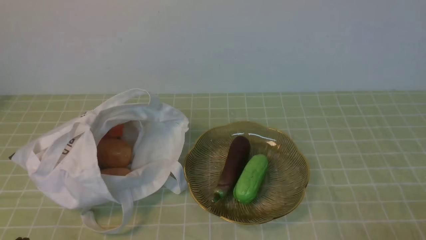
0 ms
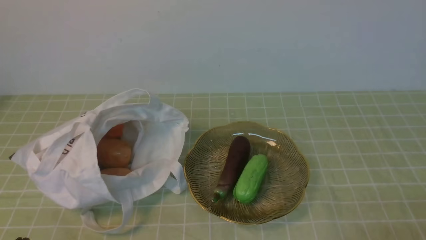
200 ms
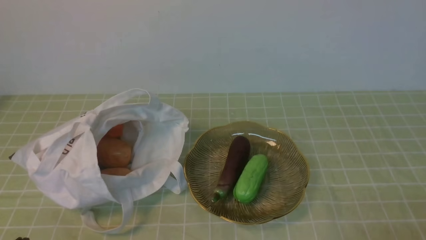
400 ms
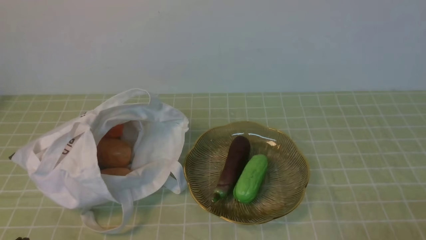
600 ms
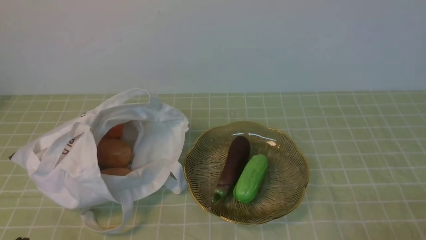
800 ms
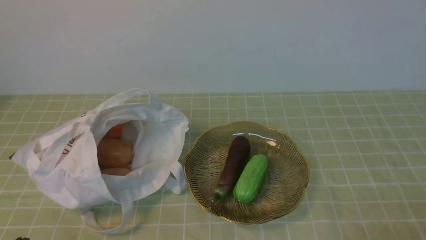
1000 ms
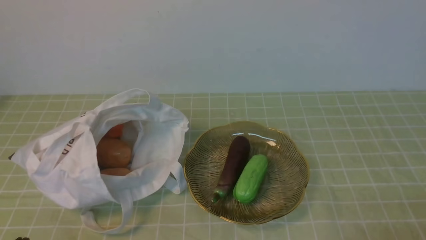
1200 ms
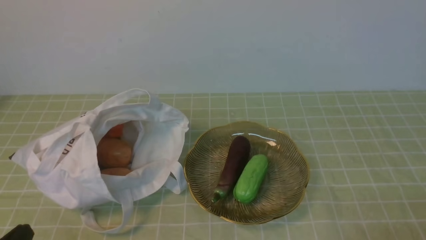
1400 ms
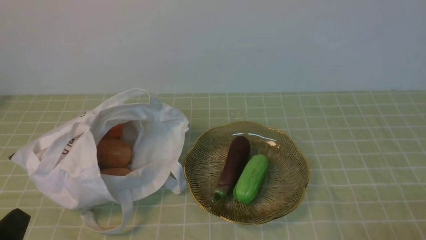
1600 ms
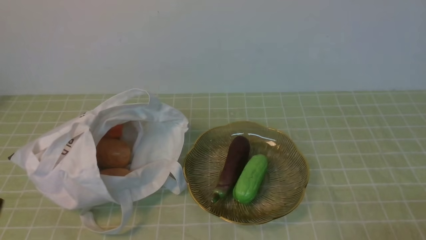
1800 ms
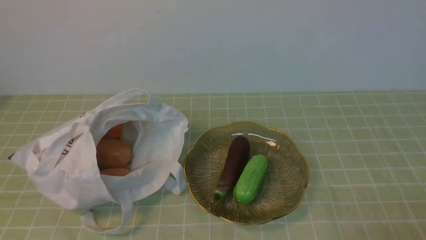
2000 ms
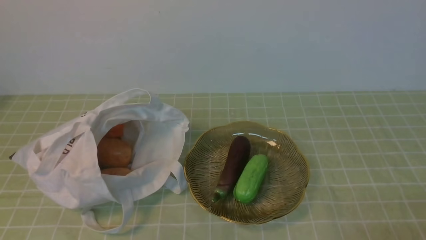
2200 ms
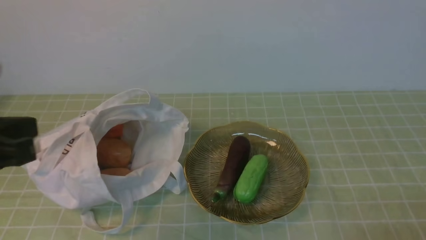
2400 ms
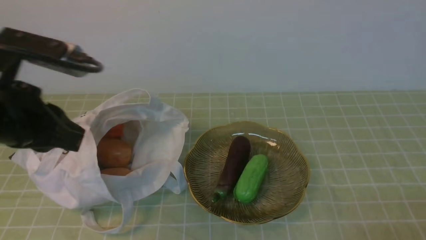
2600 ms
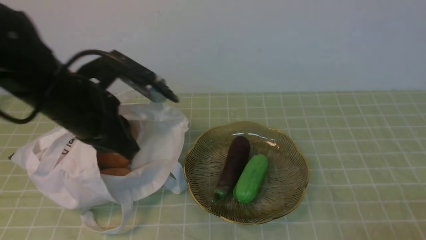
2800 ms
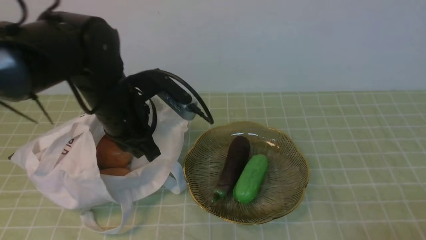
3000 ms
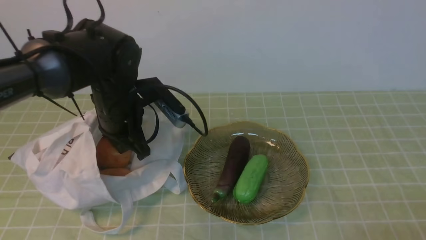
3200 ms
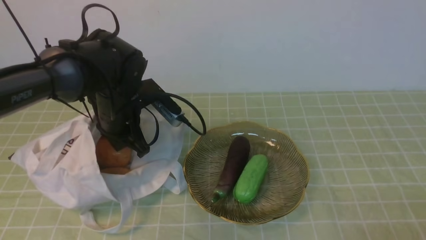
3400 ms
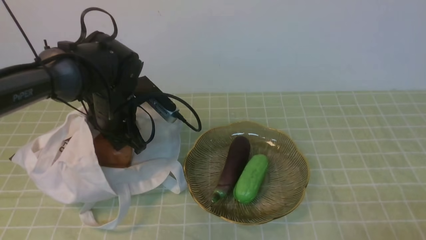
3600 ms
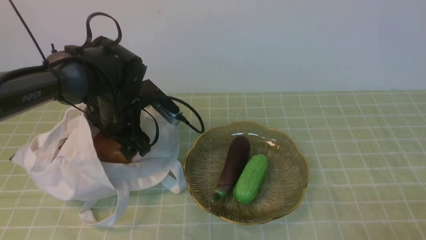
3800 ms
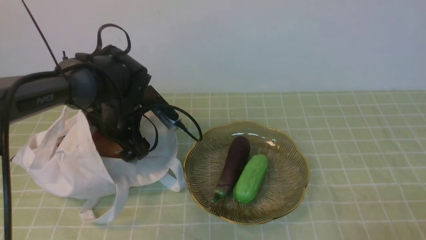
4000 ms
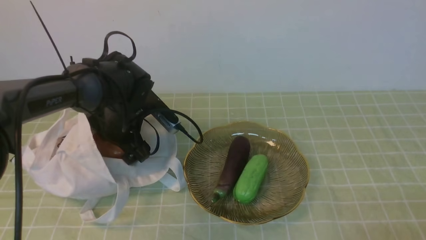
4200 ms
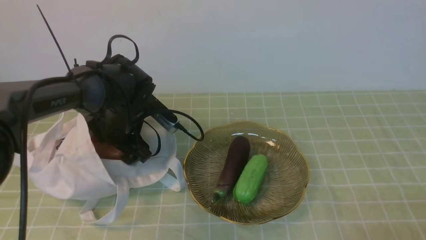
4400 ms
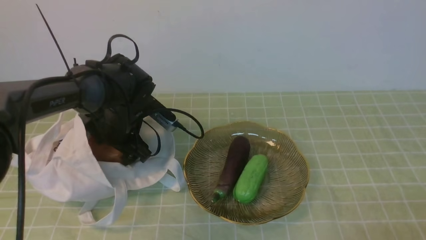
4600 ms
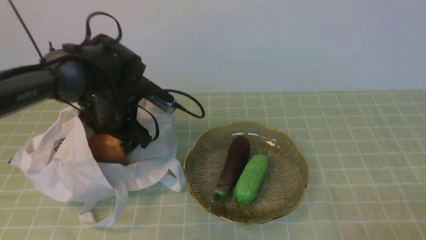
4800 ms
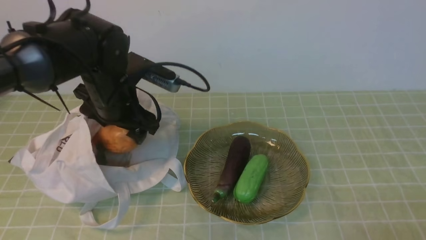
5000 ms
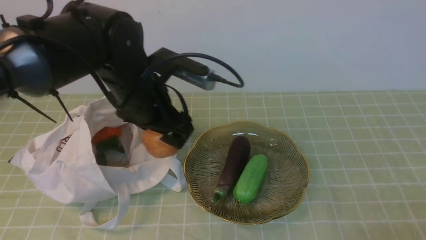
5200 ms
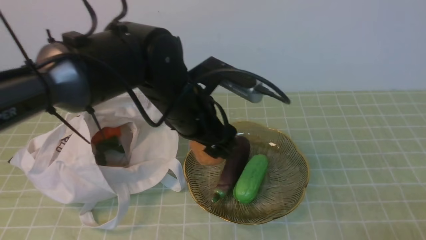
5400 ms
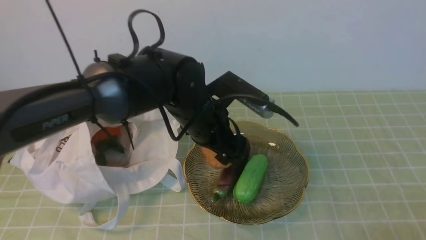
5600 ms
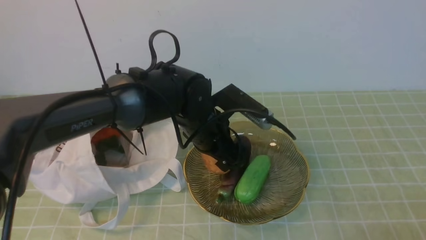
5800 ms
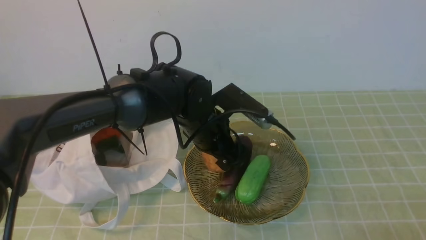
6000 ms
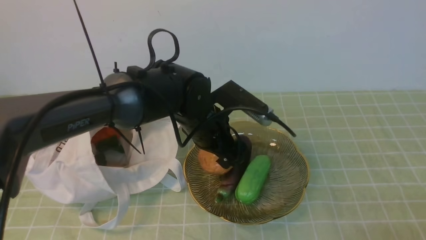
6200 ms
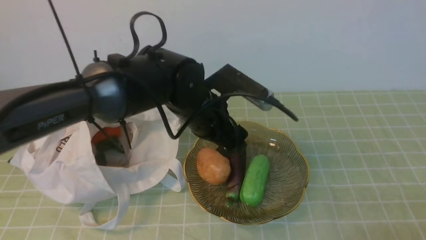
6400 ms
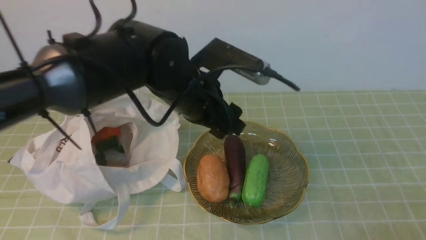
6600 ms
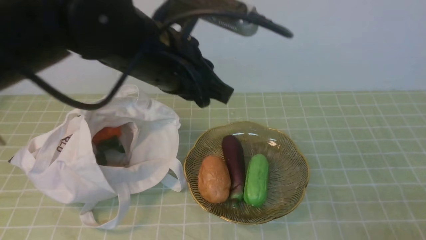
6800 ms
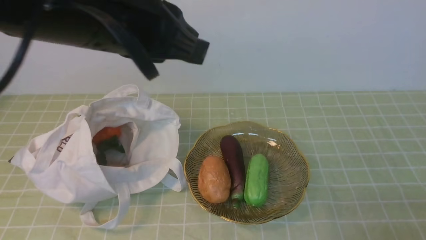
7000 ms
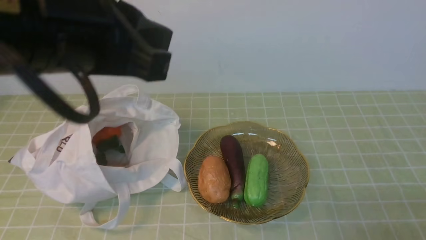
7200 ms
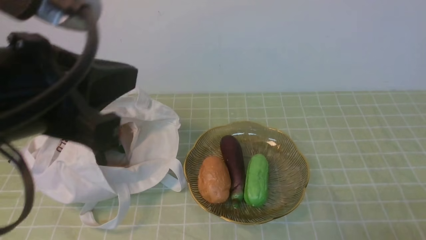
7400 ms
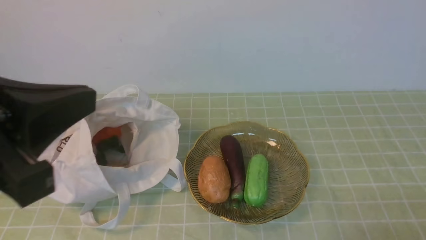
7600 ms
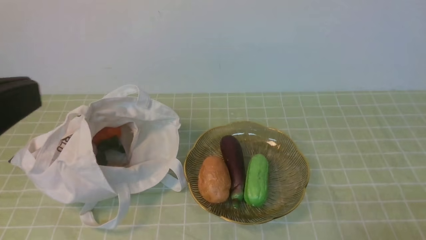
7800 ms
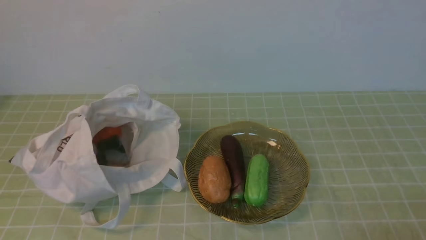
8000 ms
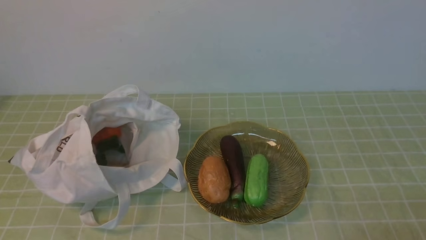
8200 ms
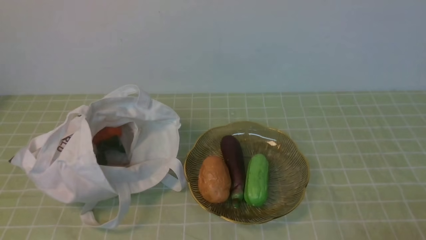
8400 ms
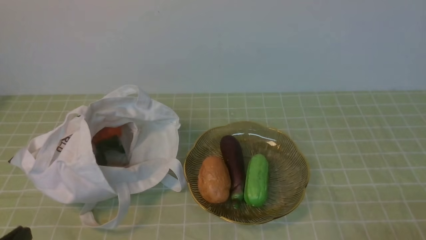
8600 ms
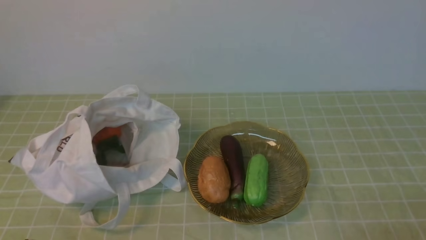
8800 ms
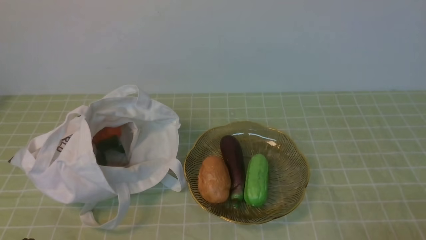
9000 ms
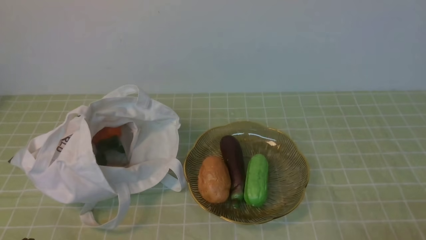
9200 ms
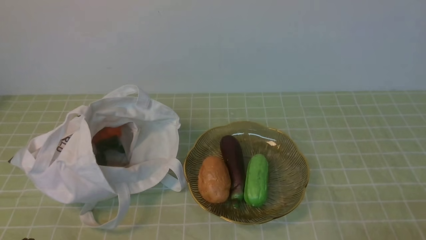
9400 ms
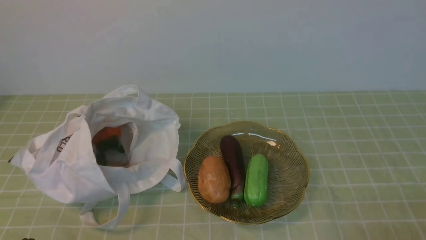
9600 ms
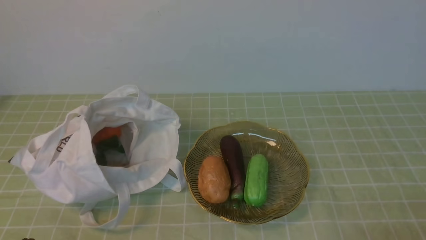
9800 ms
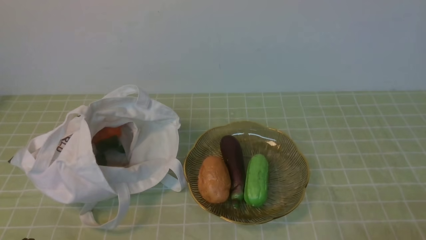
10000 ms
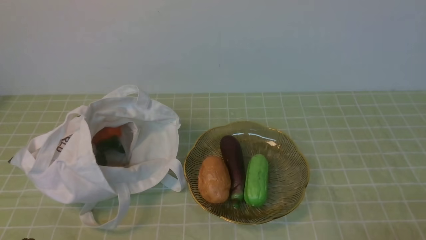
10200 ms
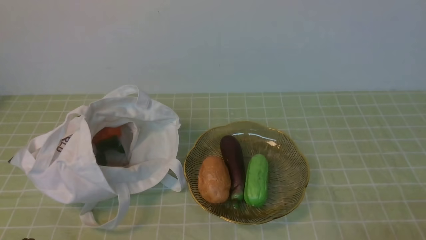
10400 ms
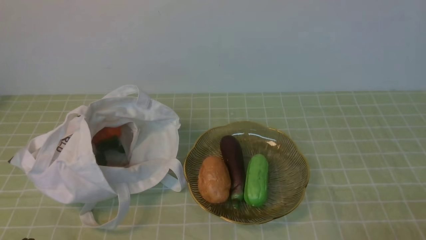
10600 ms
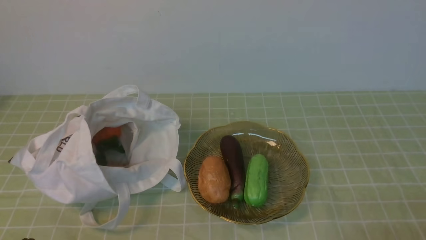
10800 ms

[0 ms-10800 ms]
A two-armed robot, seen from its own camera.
Task of the whole recording: take vegetables from bag on green coffee tablecloth place on plate.
Step, 0 ms to 4400 ms: Grasp the potato with left gripper.
Step, 4800 ms to 6400 ms: Place the potato on the plate with left gripper.
1600 ms to 3000 ms: The left gripper shifts approximately 25 cm forward and upward.
3000 ms to 4600 ms: The left gripper is displaced downward and forward by about 15 cm, and opens its fingers.
4600 ms to 6200 ms: The left gripper is displaced to the right by roughly 15 cm.
6200 ms to 7800 ms: The left gripper heads backward, upward and to the left, covering roughly 35 cm, and closes its fingers.
7800 ms to 9200 ms: The left gripper moves downward, approximately 25 cm.
9200 ms to 10800 ms: The two grippers keep their place.
